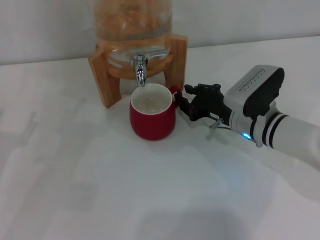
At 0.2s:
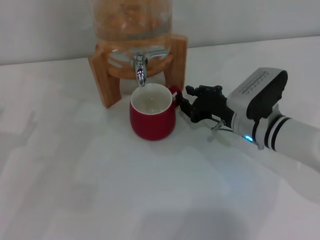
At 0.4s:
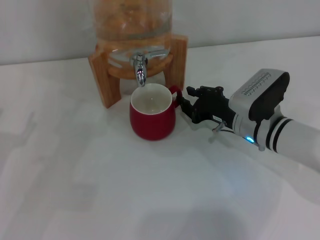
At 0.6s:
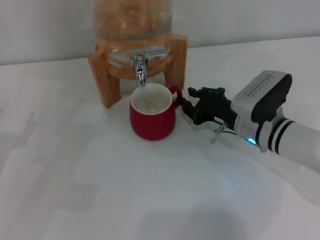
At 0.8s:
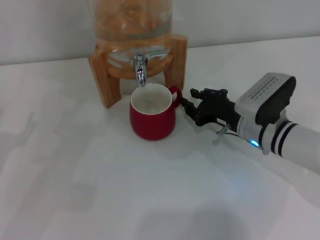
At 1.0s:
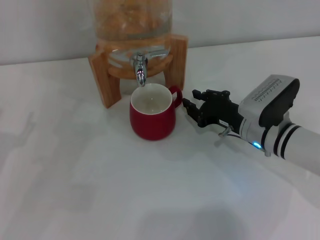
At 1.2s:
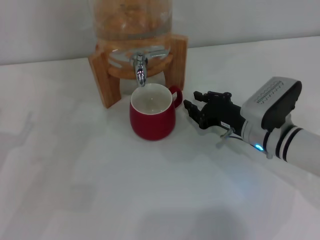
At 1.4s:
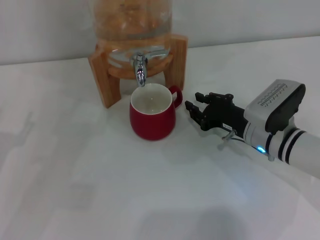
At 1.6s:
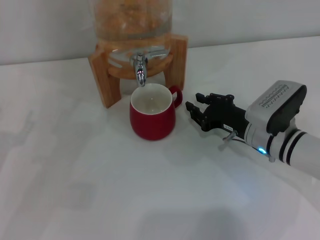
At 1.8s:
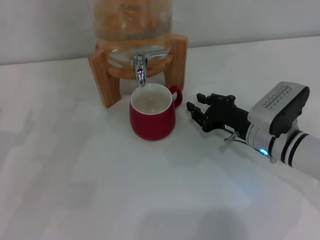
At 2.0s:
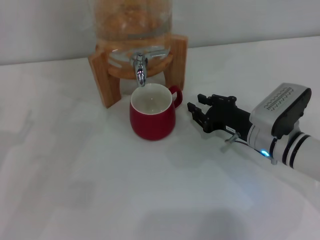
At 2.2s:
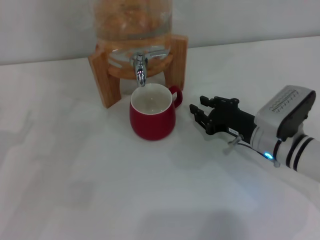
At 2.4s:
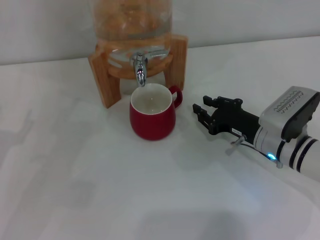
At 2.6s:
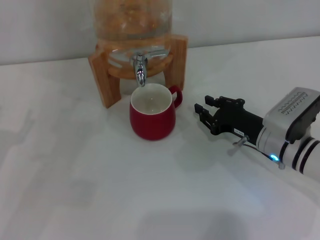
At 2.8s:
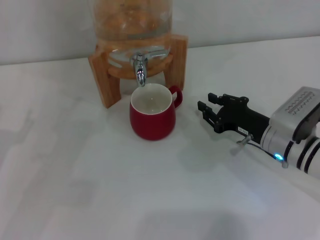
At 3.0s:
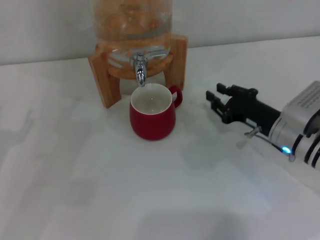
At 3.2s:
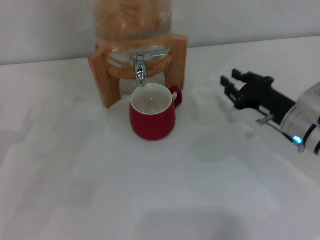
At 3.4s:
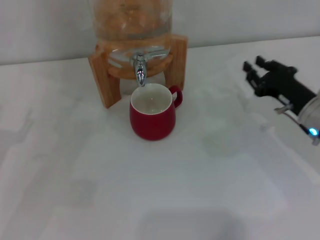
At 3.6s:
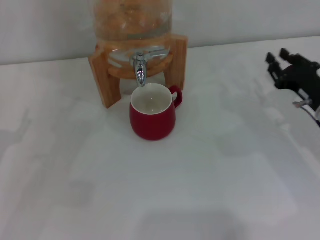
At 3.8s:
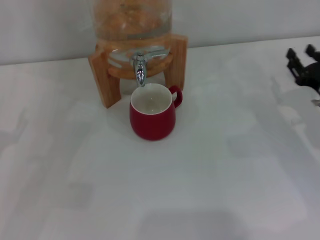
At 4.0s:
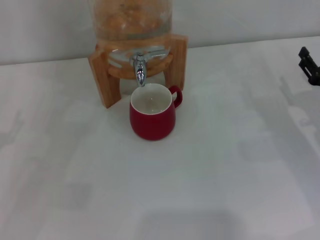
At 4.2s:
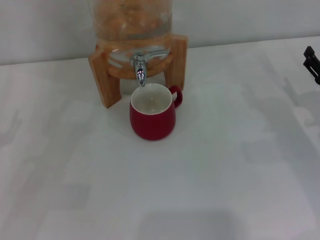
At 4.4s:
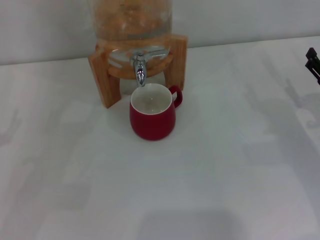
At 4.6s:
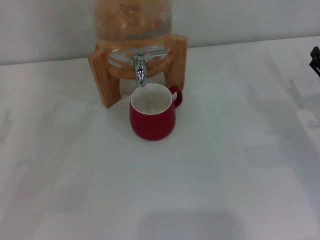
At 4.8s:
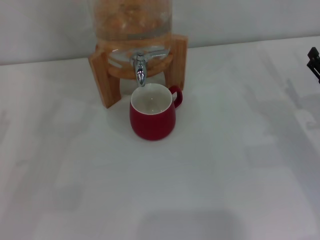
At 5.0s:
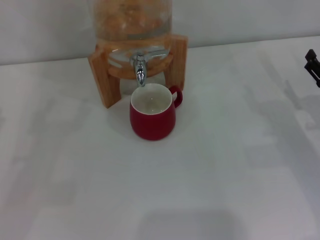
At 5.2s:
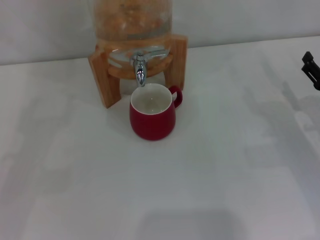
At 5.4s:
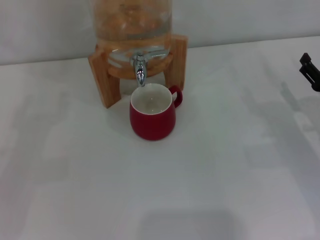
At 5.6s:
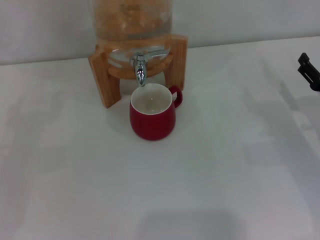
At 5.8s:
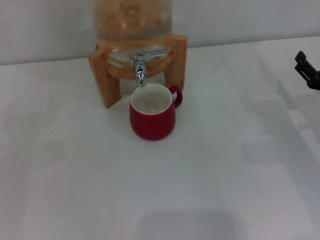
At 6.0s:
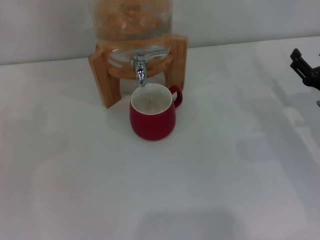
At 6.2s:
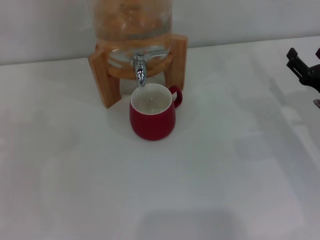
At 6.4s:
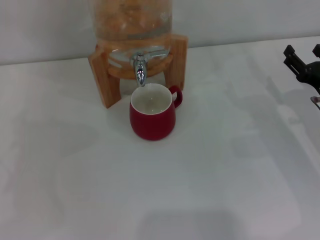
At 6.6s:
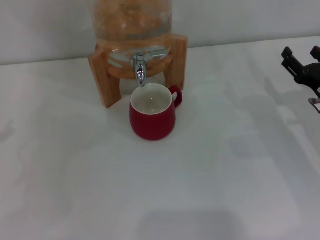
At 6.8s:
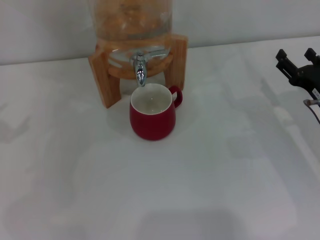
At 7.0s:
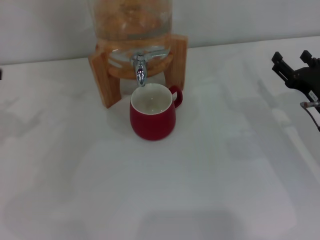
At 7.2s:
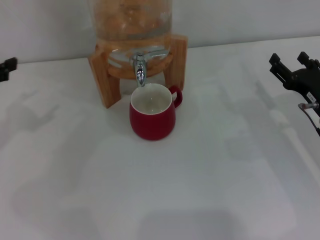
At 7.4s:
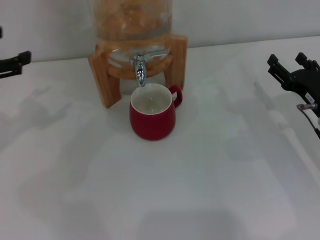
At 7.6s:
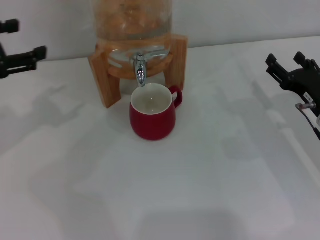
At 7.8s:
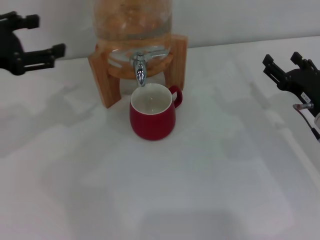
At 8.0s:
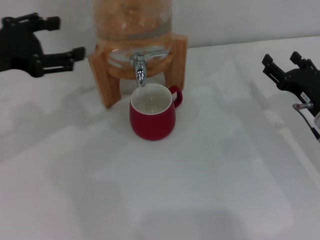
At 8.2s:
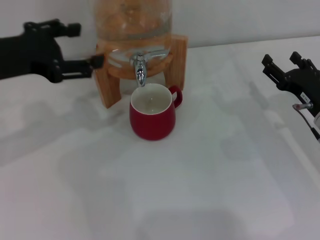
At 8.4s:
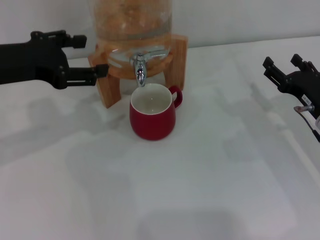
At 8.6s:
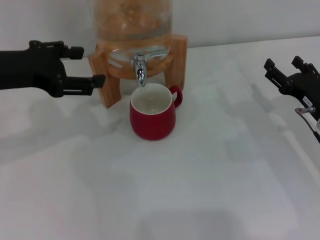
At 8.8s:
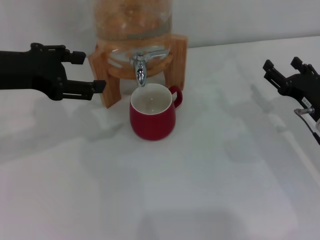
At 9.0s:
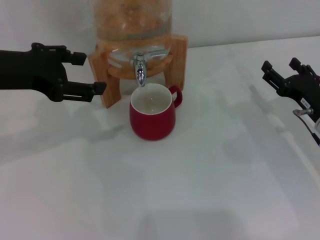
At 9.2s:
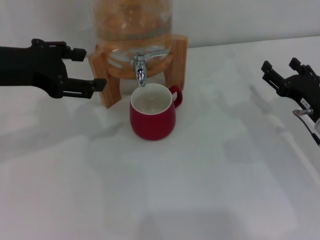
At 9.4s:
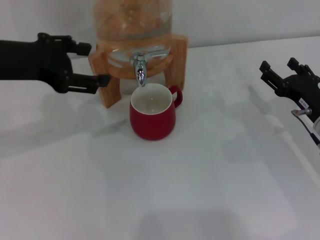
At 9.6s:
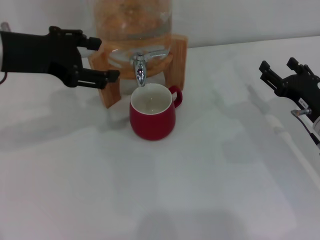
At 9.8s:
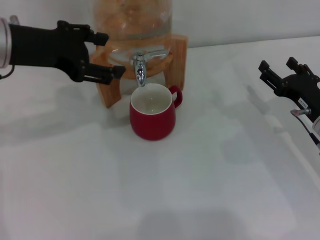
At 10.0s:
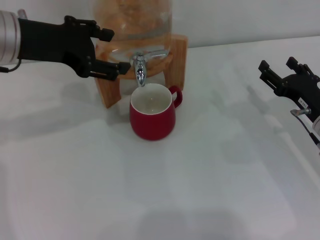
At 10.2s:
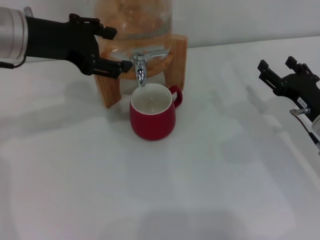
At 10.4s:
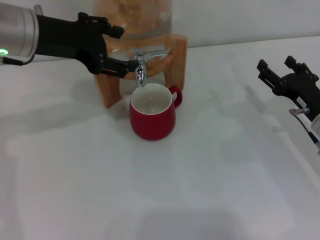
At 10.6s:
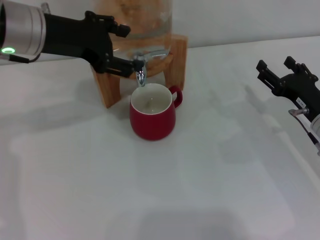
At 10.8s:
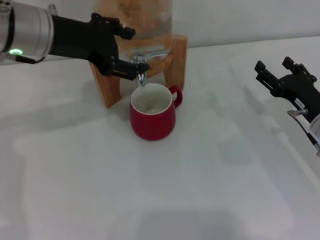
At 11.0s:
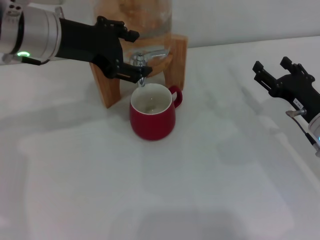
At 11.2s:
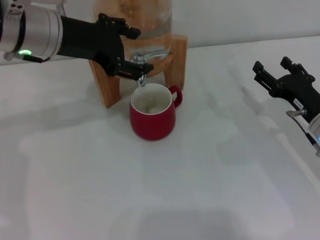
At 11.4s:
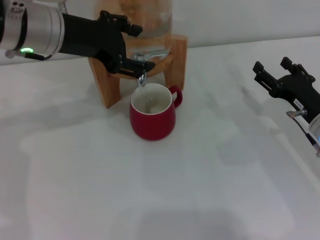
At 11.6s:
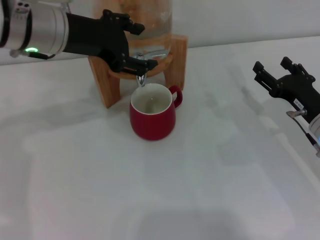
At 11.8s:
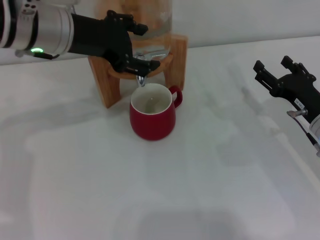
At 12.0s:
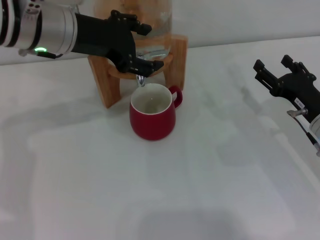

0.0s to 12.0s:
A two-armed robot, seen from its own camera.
Task of the whole recording: the right gripper pick up the red cup and place it horizontally under the faucet, the left gripper turn on the faucet to fill the cup, and then turn off the faucet.
0.0s to 1.6s: There are only small adjustments of the grippers.
1.6s to 3.0s: There are only small adjustments of the grippers.
3.0s to 4.4s: The right gripper travels to the right by some 10 cm, and opens up.
6.0s to 7.6s: The left gripper shifts roughly 10 cm to the right and upward.
7.6s to 9.0s: The left gripper goes about 5 cm to the right.
9.0s to 10.4s: The left gripper is displaced to the right and forward by roughly 10 cm.
10.4s to 12.0s: The grippers move only a little.

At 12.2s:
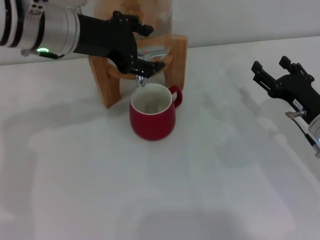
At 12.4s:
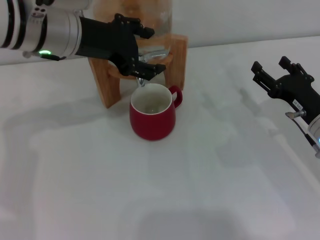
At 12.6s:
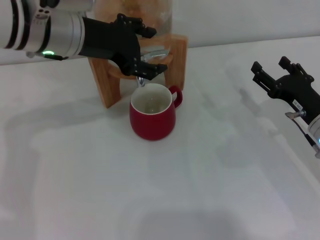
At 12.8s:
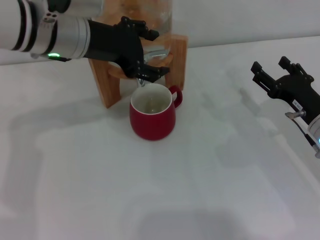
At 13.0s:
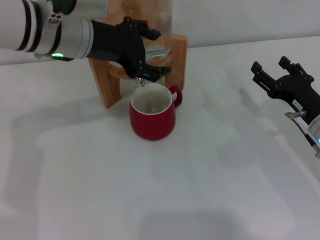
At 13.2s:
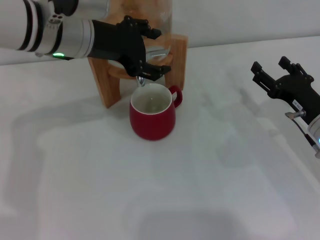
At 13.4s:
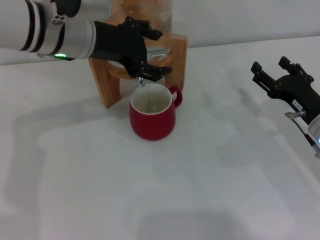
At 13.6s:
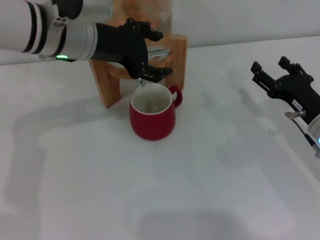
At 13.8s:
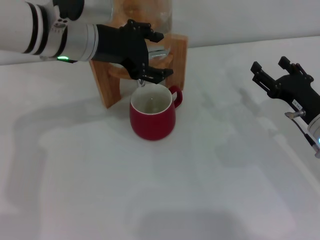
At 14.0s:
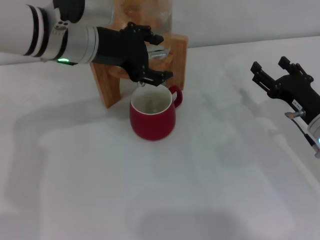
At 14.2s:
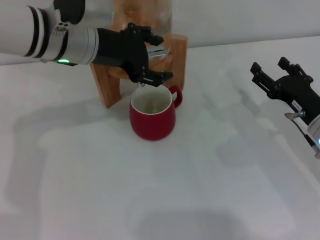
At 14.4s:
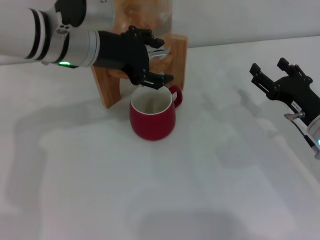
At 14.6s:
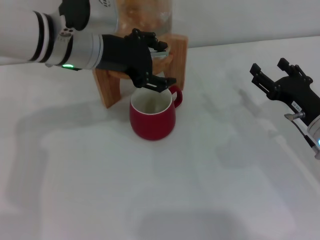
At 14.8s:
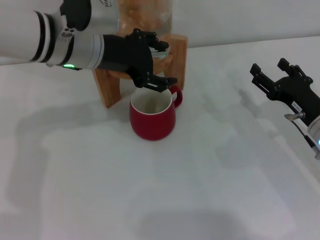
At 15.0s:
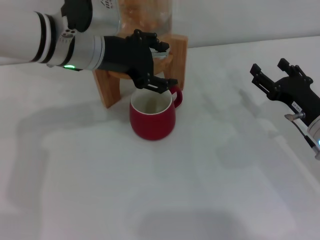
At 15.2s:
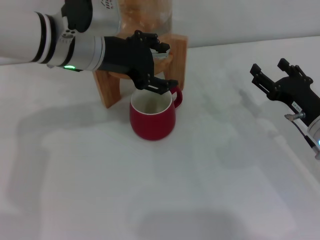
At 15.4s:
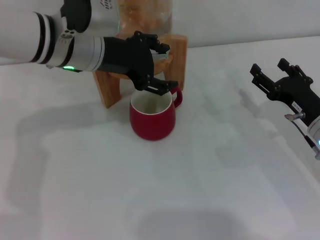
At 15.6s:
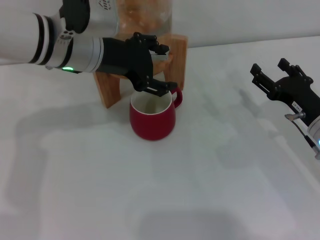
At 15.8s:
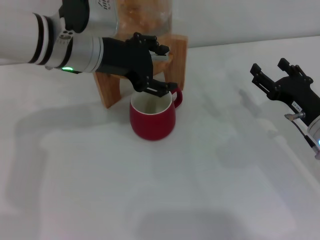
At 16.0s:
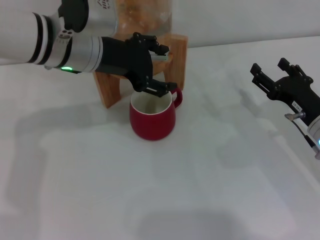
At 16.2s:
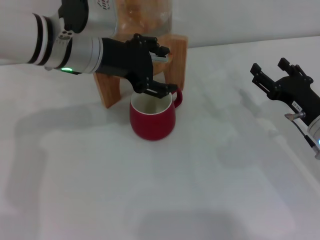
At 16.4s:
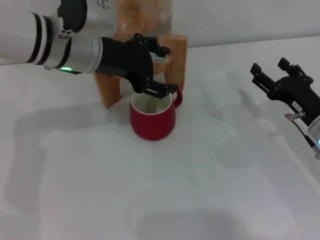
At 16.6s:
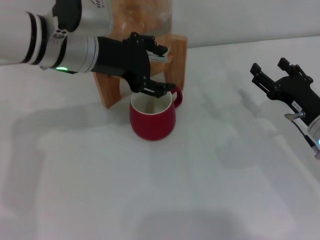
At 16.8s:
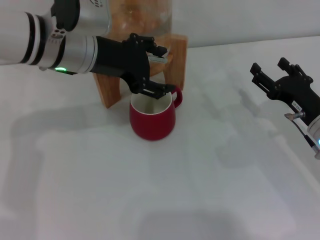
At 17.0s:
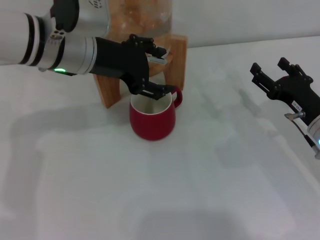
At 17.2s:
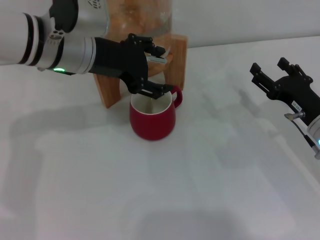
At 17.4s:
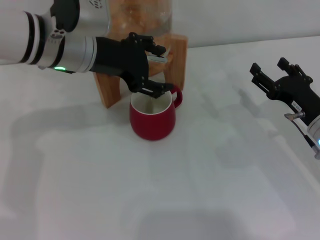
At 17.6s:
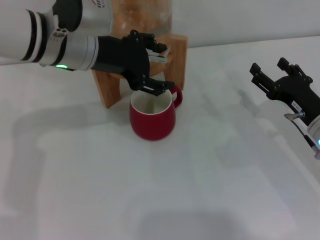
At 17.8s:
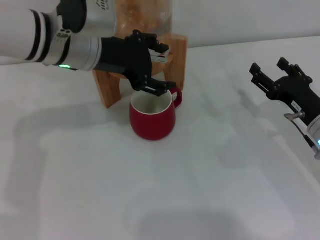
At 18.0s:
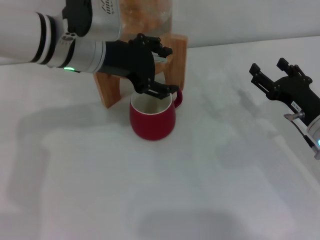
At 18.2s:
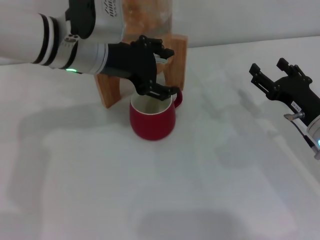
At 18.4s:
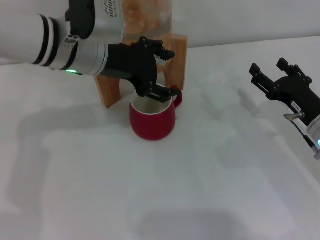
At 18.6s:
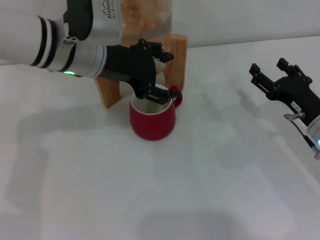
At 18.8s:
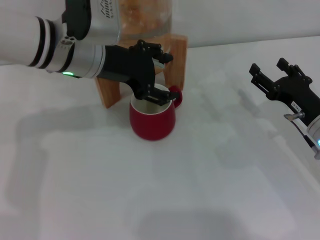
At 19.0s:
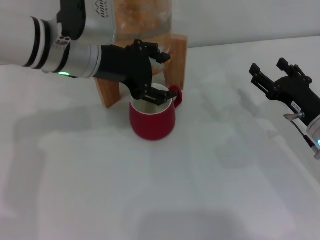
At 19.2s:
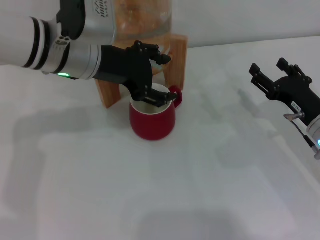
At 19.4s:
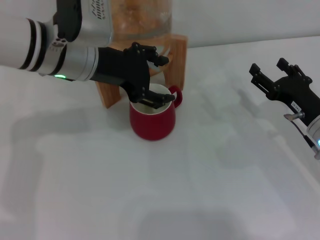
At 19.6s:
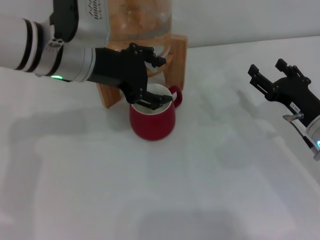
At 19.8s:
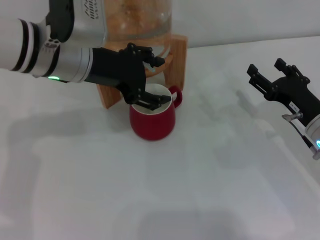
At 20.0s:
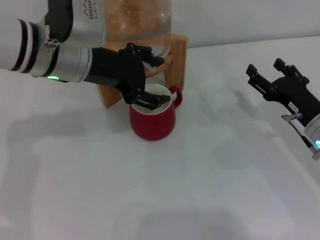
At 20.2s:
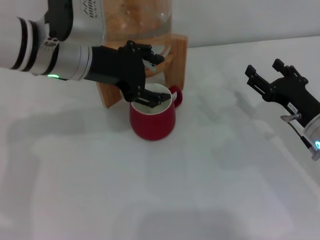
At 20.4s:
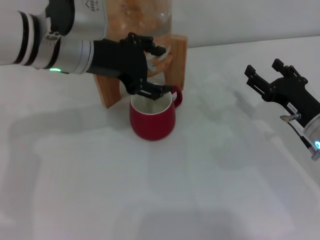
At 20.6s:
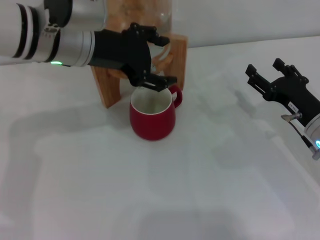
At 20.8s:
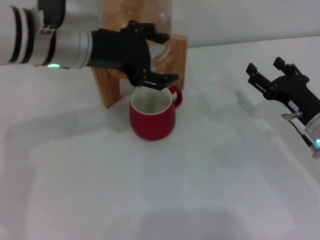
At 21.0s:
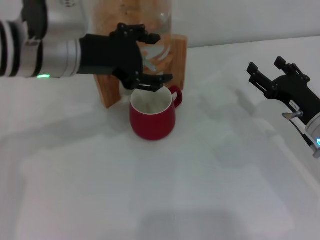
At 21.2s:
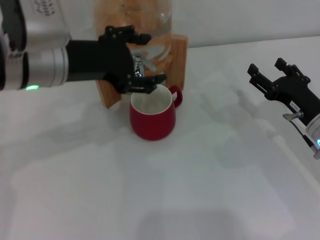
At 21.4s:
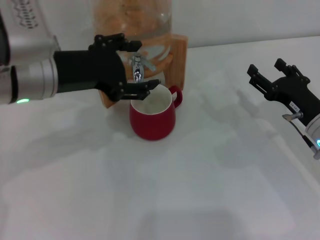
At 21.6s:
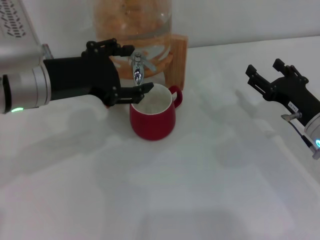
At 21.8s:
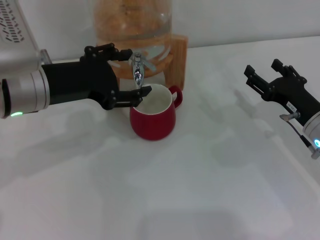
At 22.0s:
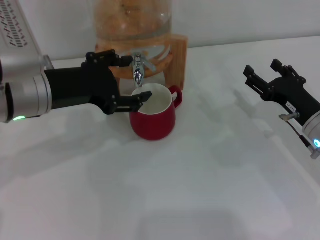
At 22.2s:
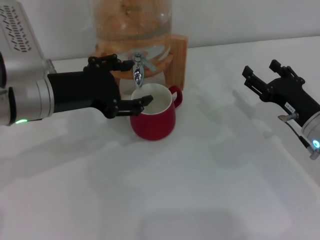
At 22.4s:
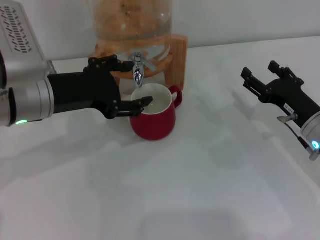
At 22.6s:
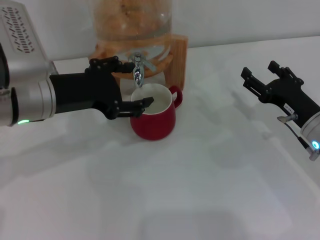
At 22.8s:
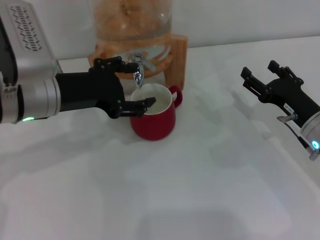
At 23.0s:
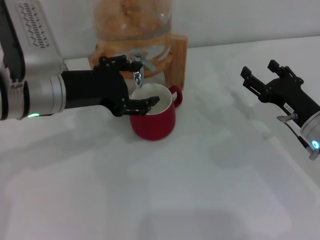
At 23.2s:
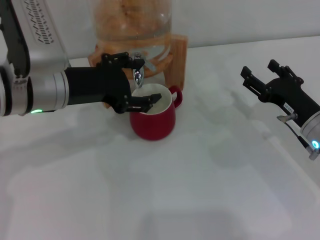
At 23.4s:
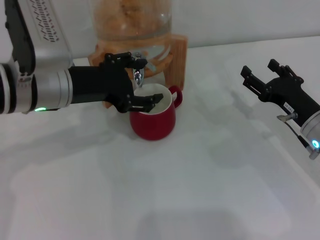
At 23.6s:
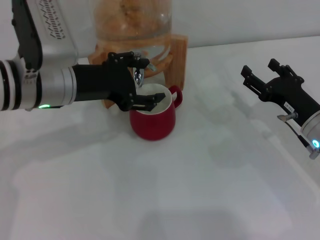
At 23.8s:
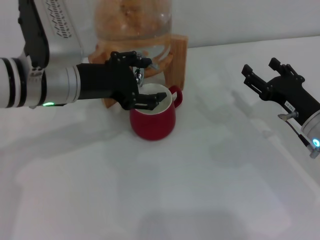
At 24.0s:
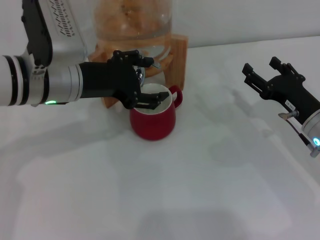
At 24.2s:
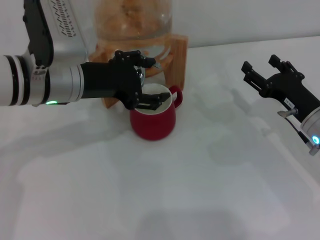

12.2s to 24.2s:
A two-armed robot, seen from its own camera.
Task of the whole recording: the right gripper pick up the red cup and place it horizontally under the faucet, the left gripper turn on the faucet to fill the cup, and then turn off the faucet.
Step, 12.2s to 20.2s: Open the dispenser valve and fill the cup with water with the left gripper.
12.2s to 13.8s: The grippers make only small movements.
13.8s to 16.6s: Both grippers stay about where they are.
16.6s to 18.2s: Both grippers stay about where they are.
18.2s to 19.8s: There are only small adjustments of the grippers.
19.8s to 21.2s: There are only small adjustments of the grippers.
21.2s to 24.2s: The grippers stay close to where they were, moving slightly.
